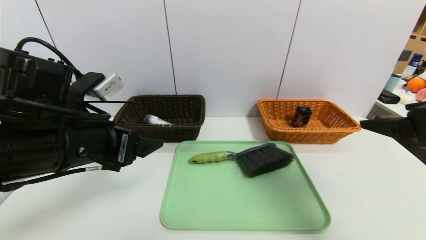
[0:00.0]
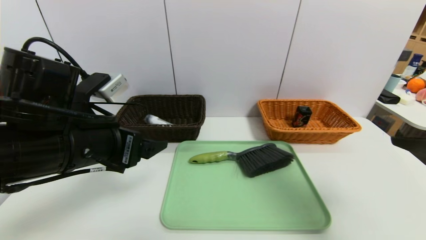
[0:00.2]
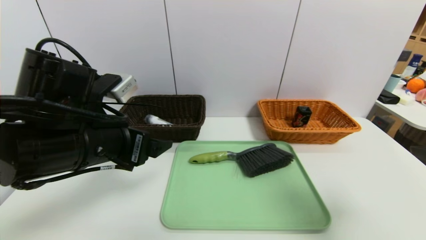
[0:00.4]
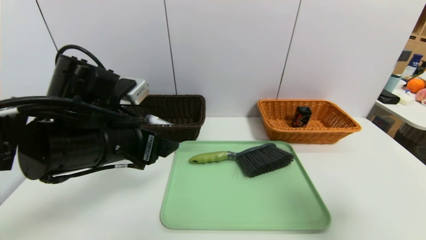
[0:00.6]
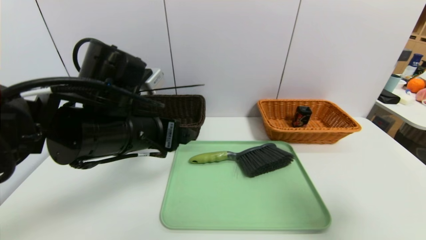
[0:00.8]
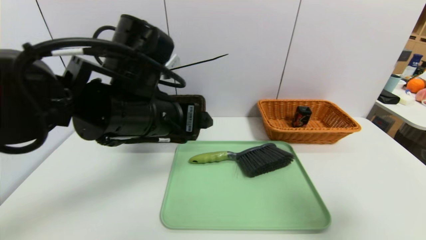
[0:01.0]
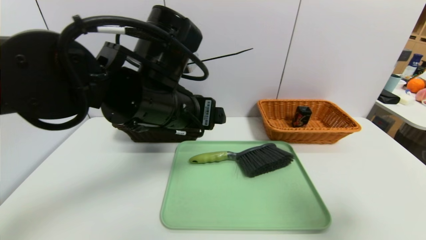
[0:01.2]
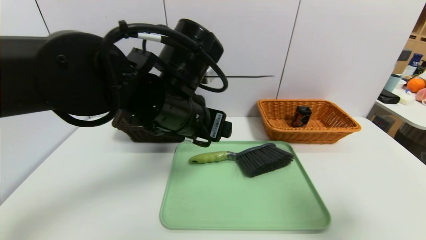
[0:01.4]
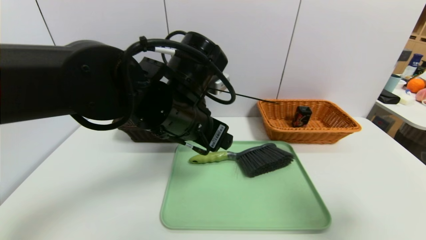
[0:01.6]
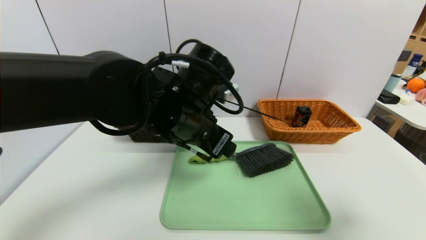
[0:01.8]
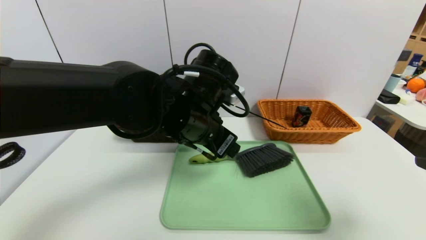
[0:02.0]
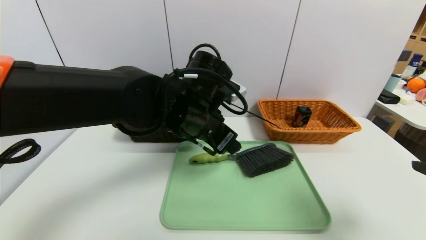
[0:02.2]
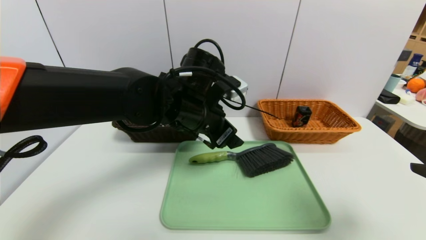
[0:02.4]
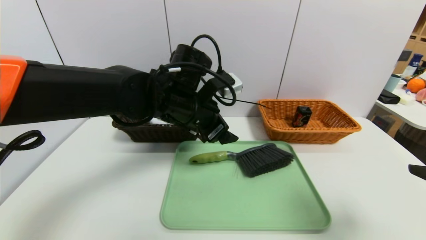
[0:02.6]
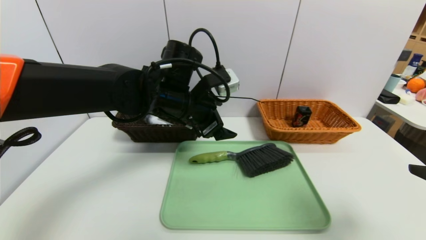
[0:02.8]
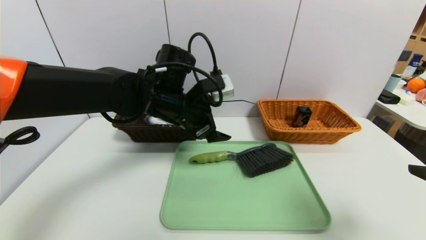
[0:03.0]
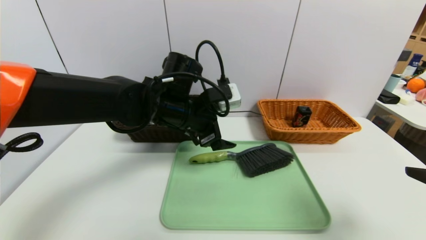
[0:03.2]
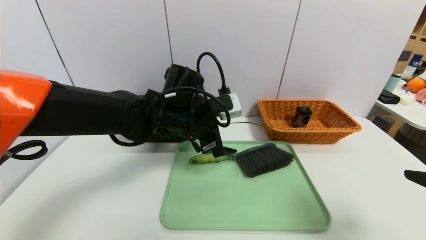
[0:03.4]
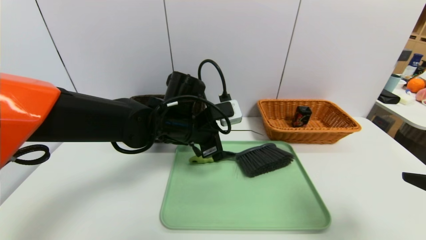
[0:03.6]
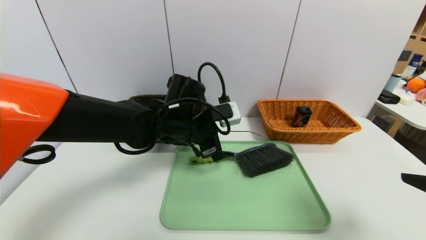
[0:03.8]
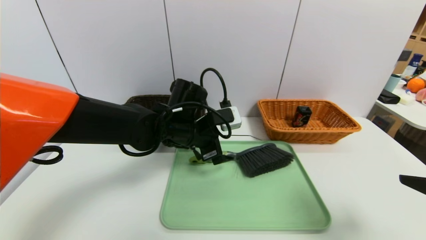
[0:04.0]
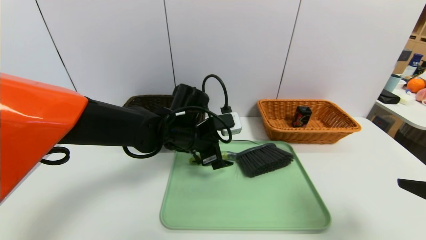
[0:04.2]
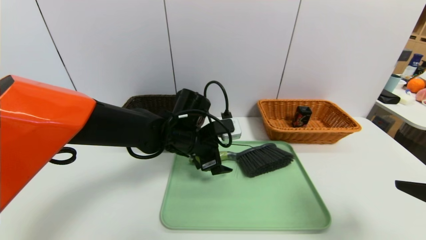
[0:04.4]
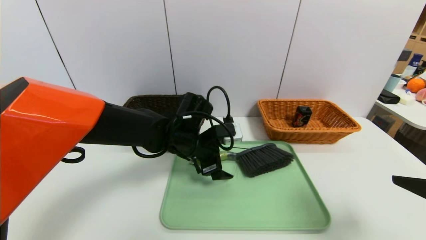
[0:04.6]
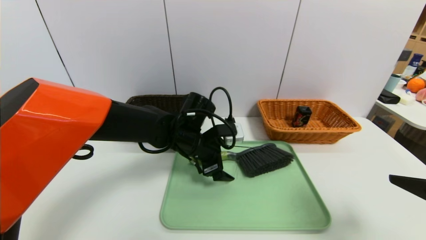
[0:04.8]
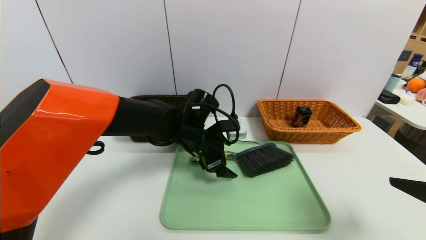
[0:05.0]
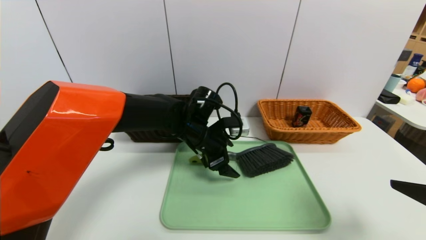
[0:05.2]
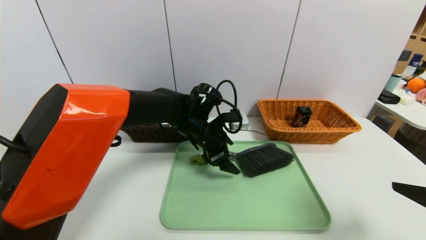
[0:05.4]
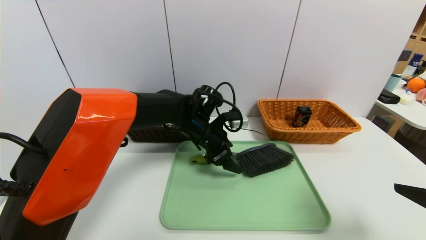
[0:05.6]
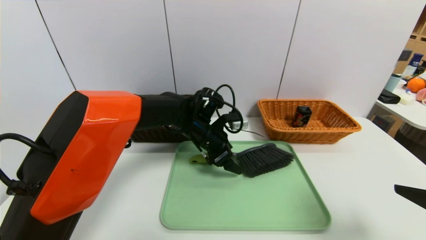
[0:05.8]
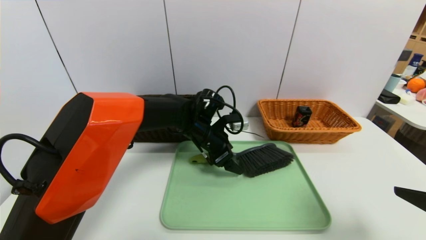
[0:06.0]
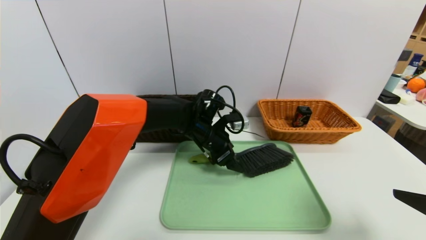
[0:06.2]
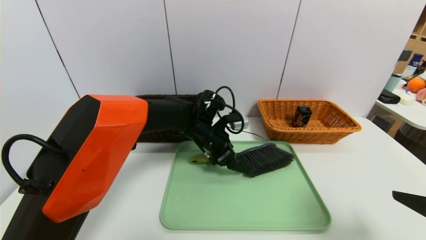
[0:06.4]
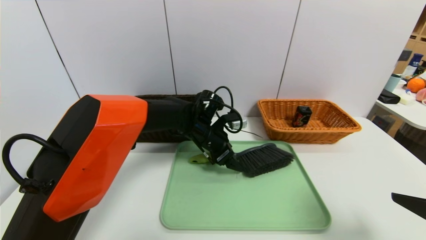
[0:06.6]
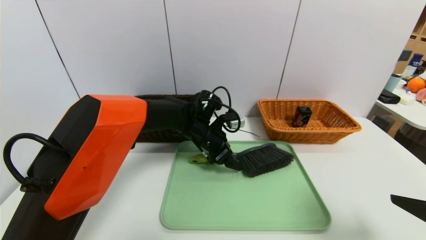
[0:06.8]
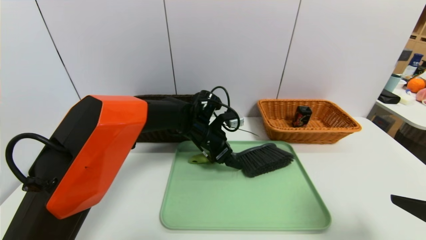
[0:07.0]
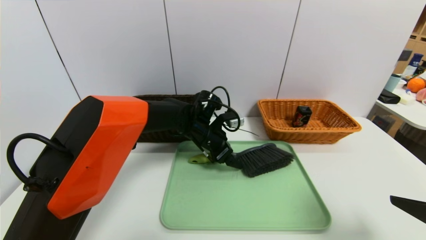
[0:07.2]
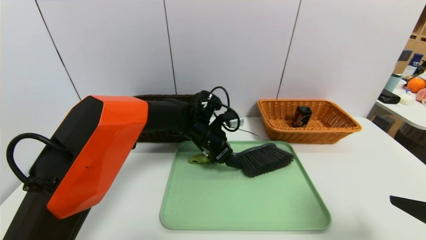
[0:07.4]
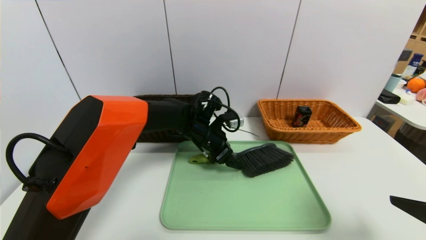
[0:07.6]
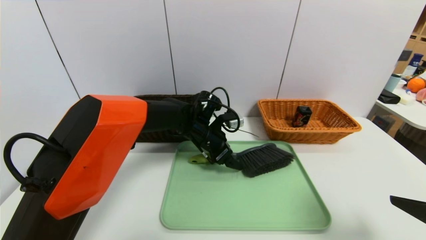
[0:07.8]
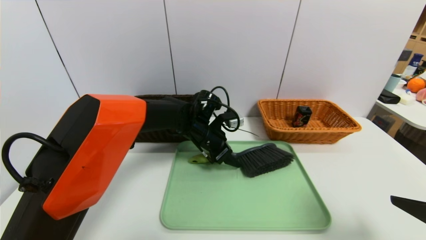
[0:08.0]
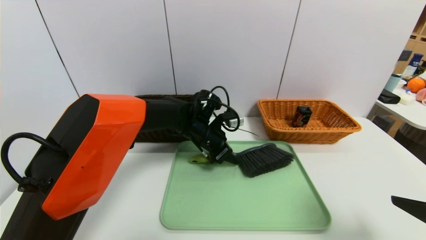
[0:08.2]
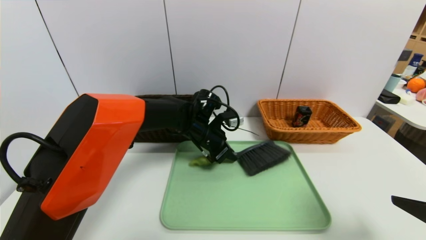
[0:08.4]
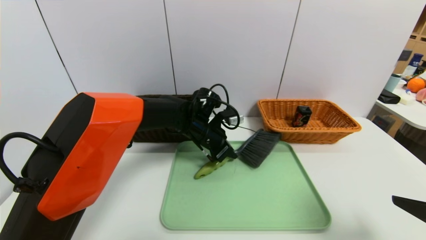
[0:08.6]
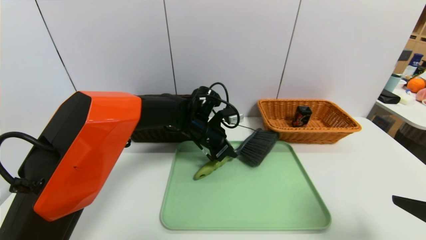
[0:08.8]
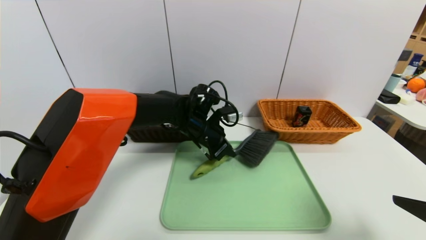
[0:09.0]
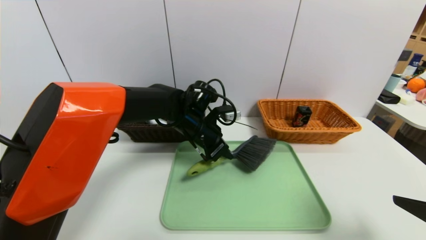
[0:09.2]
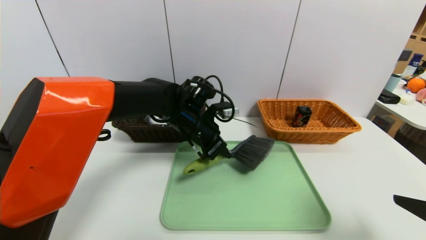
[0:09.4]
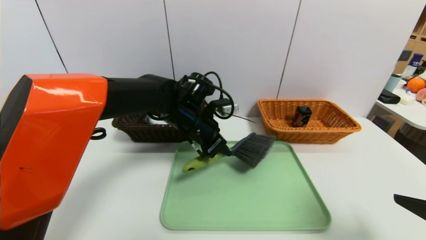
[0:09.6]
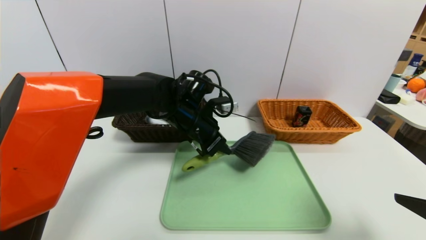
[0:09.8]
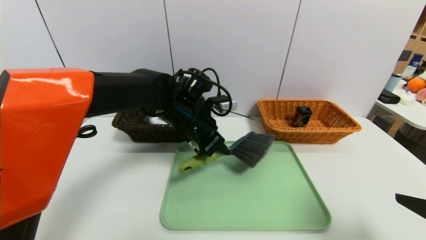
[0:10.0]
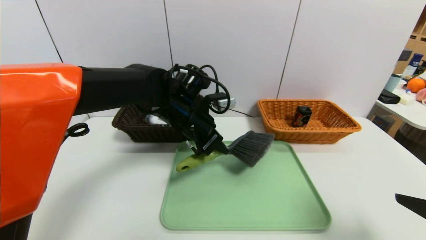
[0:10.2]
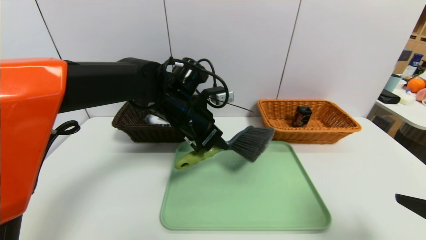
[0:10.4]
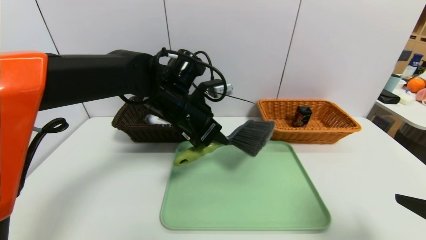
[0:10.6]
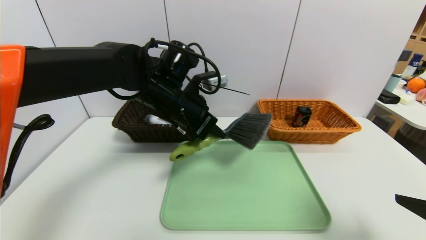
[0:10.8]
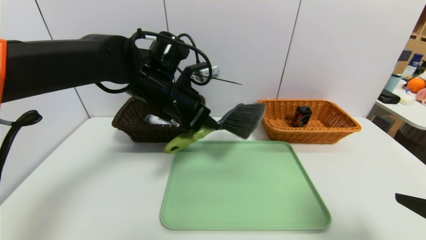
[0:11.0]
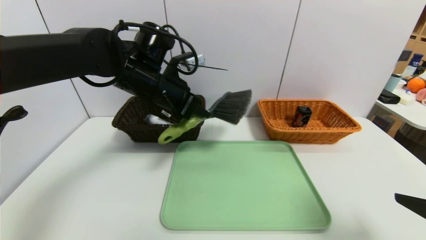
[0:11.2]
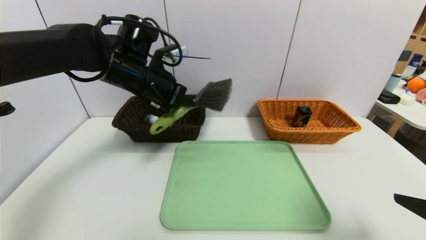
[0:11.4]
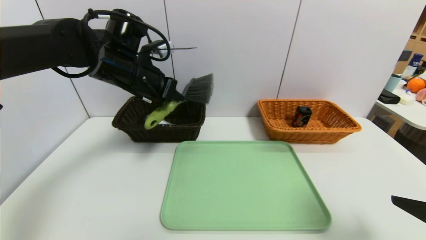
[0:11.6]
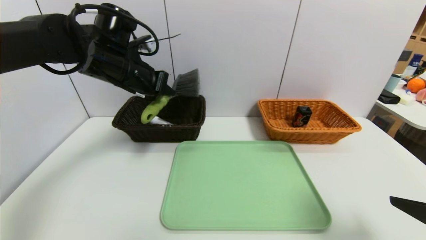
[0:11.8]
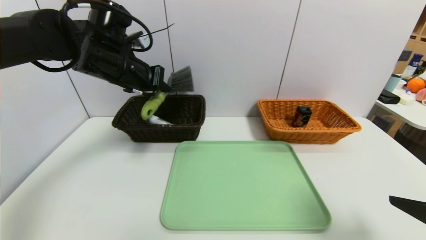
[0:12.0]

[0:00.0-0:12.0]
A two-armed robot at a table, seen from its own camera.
Task of the whole recording: place the food in the right basket with the right gripper, and place the non food items in the left basket with the left gripper.
0:00.0 to 0:01.6: The right gripper goes some 5 cm backward; the left gripper heads to the right and forward, covering some 15 cm.
0:01.6 to 0:03.0: The left gripper moves forward, about 10 cm.
0:03.0 to 0:04.4: The left gripper travels downward by about 10 cm.
0:04.4 to 0:06.0: The left gripper heads forward, covering approximately 5 cm.
0:06.0 to 0:07.6: The grippers stay close to where they were, moving slightly.
0:07.6 to 0:09.0: The left gripper closes.
0:09.0 to 0:10.4: The left gripper is displaced upward by some 5 cm.
0:10.4 to 0:12.0: The left gripper heads to the left and upward, covering roughly 15 cm.

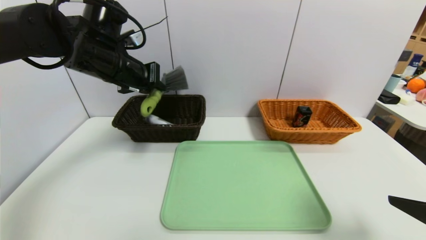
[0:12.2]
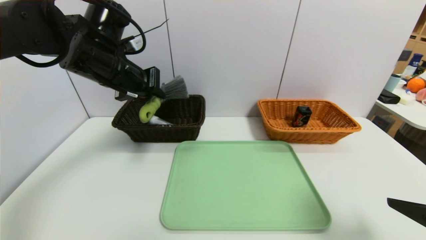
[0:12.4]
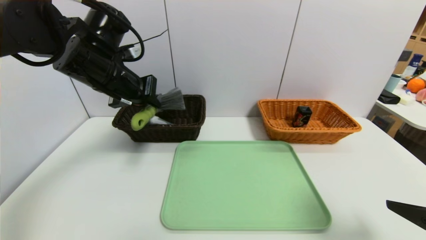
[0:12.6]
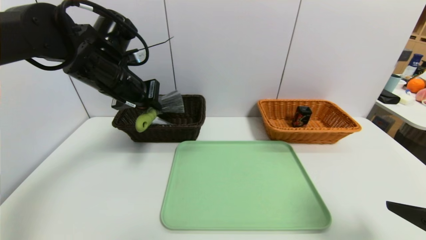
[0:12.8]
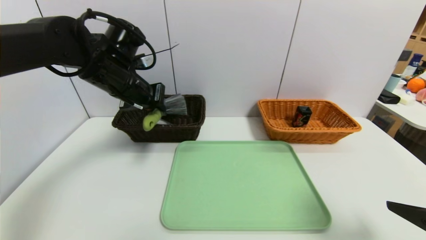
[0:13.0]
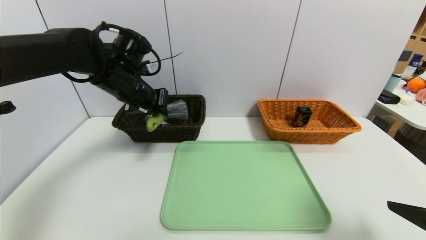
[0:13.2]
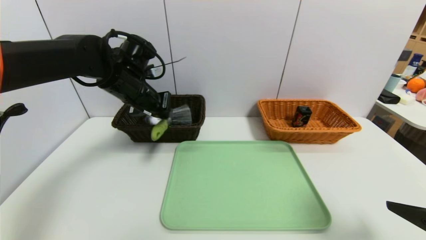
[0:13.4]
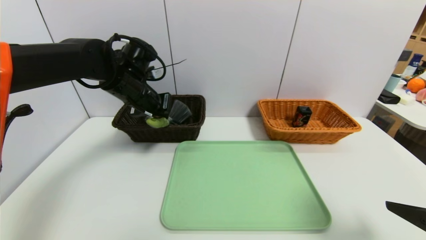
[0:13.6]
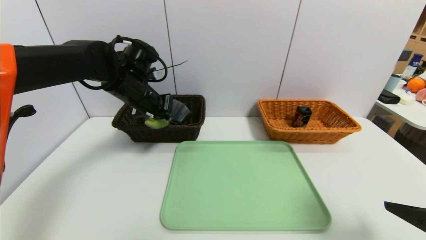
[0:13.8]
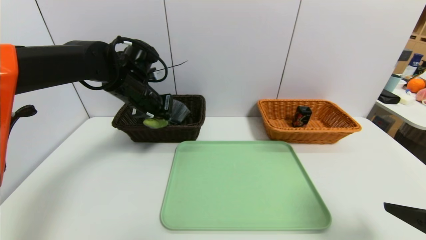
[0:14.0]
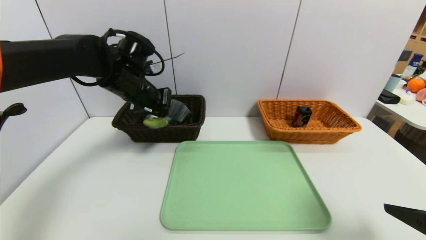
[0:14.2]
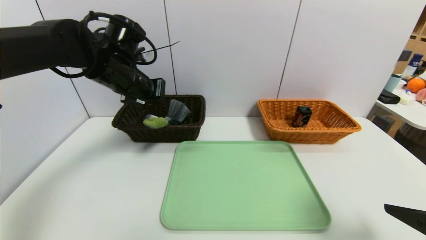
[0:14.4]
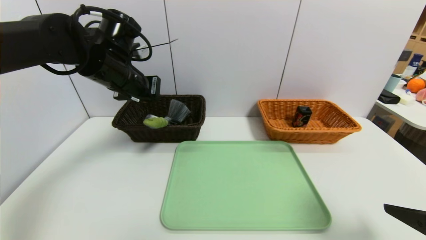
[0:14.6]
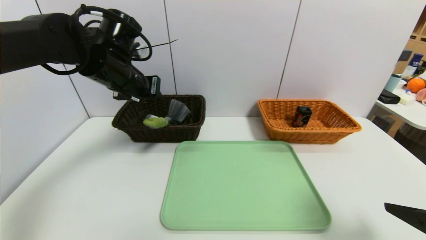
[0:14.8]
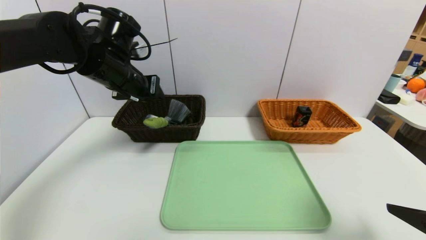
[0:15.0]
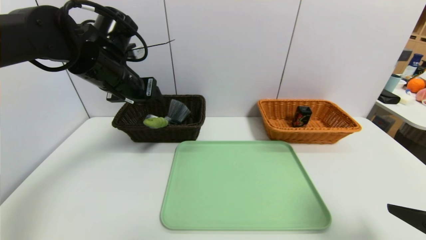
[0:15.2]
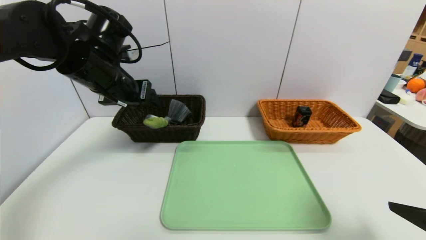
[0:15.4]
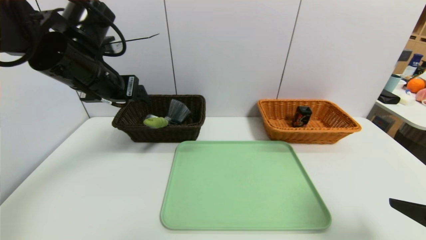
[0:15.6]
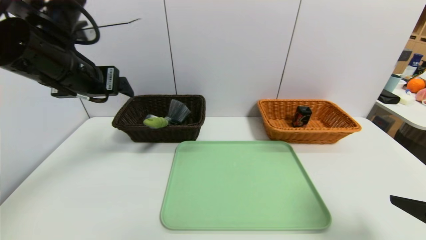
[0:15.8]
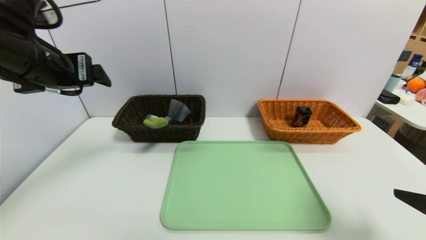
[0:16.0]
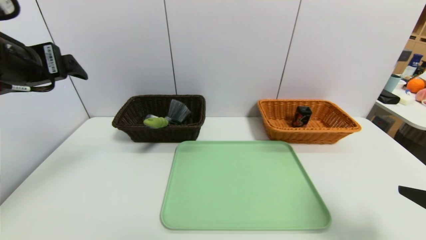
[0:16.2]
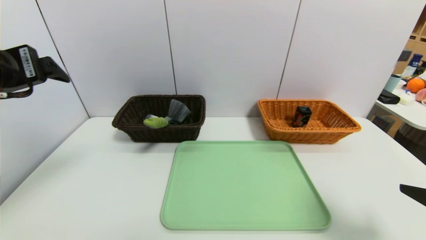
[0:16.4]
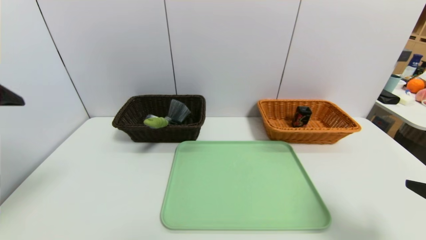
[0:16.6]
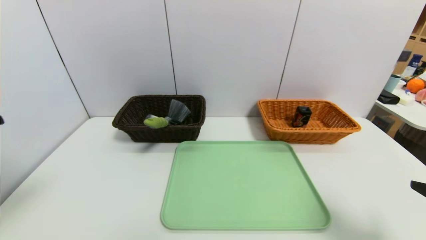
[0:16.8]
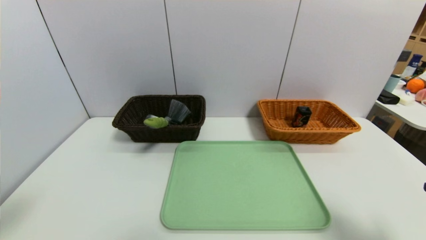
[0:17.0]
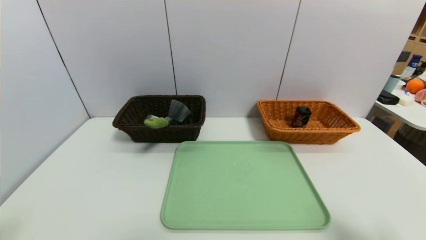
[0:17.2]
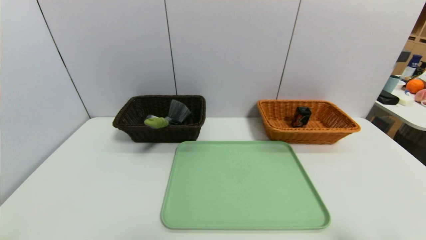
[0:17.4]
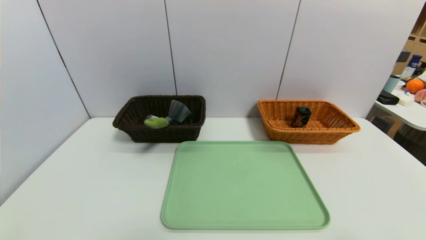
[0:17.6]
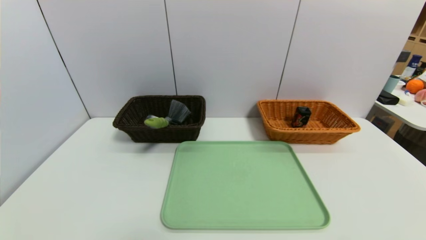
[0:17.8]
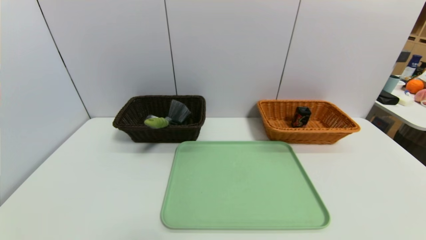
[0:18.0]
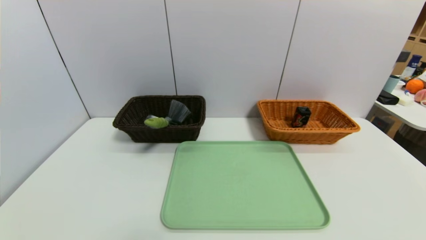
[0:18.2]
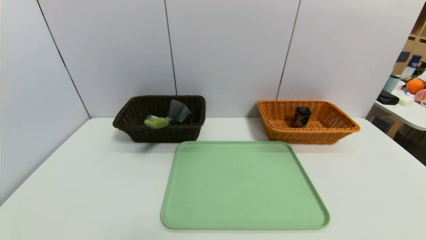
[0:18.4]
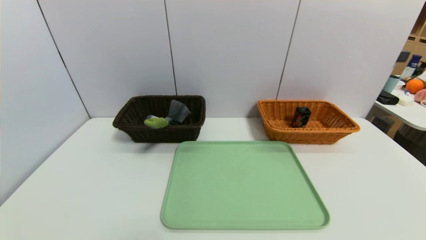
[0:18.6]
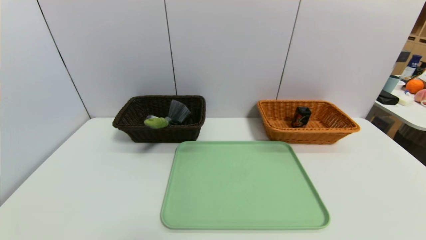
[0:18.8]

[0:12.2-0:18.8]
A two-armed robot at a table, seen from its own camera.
Task of the whole recording: place the food in the right basket with the right gripper, and place the non food items in the left basket with the left gripper.
Step, 0:12.2 to 0:14.4: Grasp the brush and put it in the left basket.
0:12.2 to 0:13.8: The left gripper shifts some 5 cm downward.
0:13.8 to 0:15.4: The left gripper heads backward and upward, covering some 5 cm, and opens up.
0:15.4 to 0:17.2: The left gripper moves backward, approximately 30 cm. The right gripper moves some 5 cm.
0:17.2 to 0:18.8: The right gripper travels backward and downward by approximately 10 cm.
